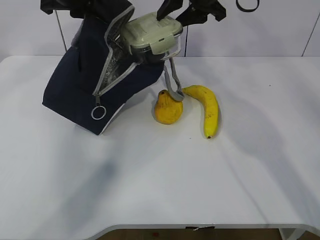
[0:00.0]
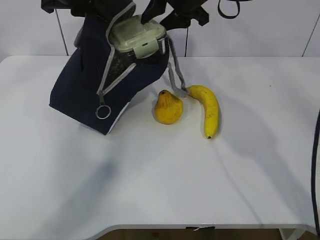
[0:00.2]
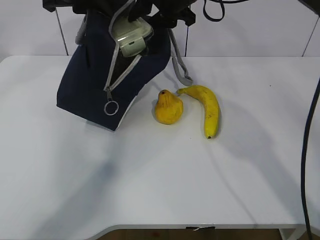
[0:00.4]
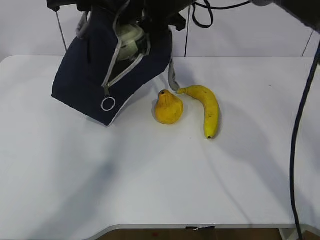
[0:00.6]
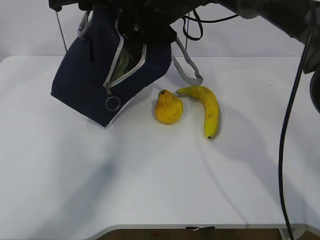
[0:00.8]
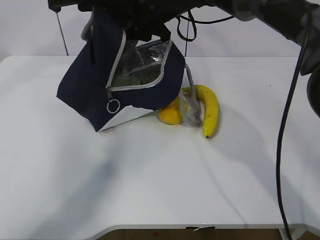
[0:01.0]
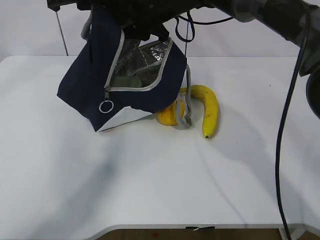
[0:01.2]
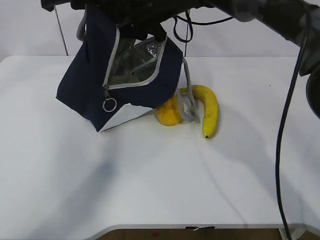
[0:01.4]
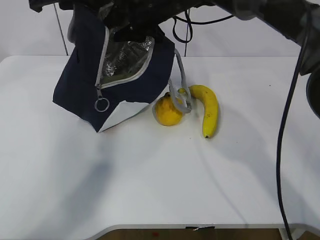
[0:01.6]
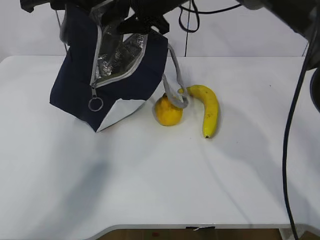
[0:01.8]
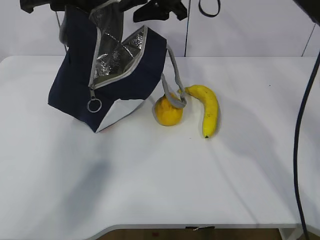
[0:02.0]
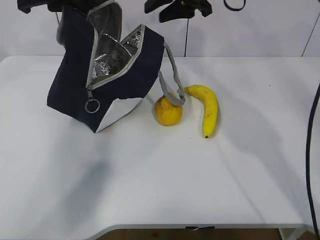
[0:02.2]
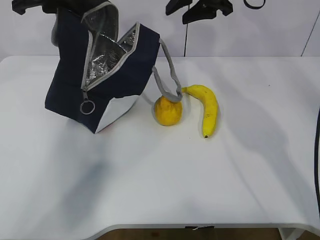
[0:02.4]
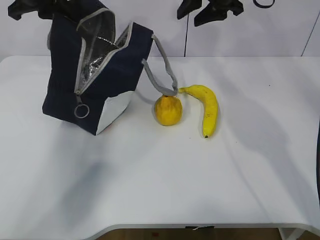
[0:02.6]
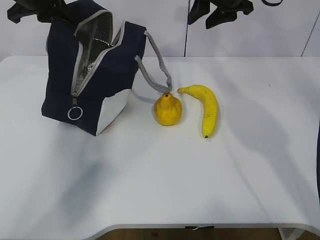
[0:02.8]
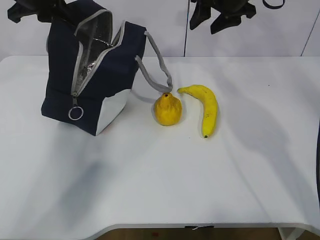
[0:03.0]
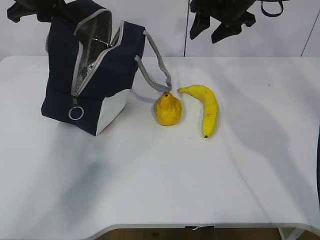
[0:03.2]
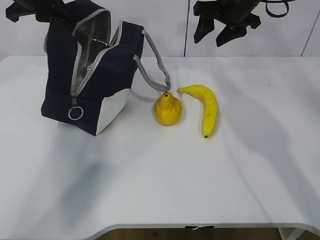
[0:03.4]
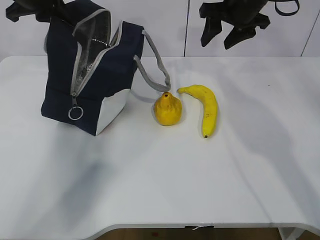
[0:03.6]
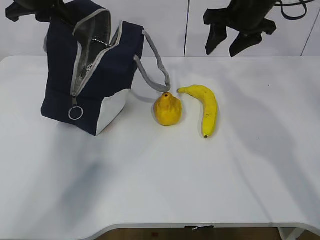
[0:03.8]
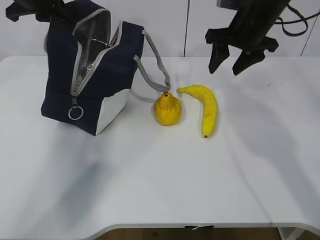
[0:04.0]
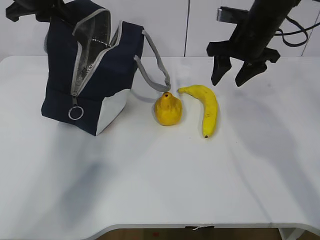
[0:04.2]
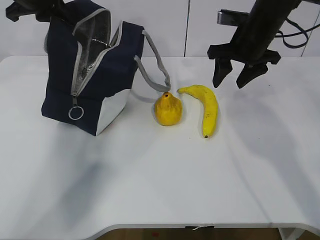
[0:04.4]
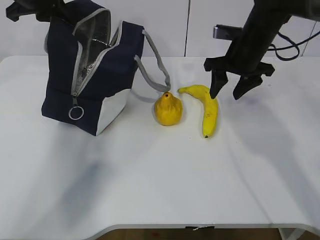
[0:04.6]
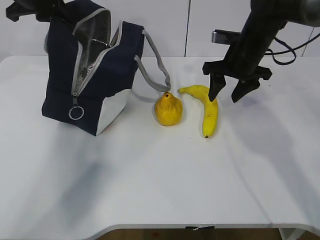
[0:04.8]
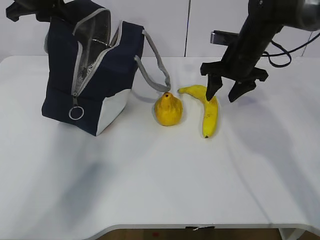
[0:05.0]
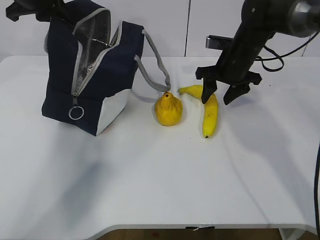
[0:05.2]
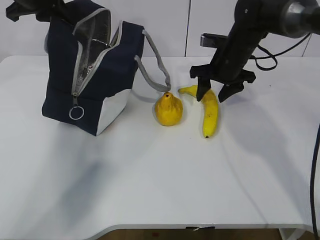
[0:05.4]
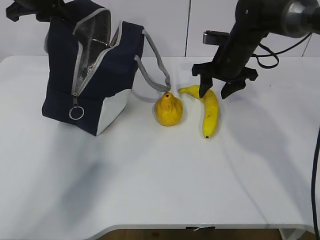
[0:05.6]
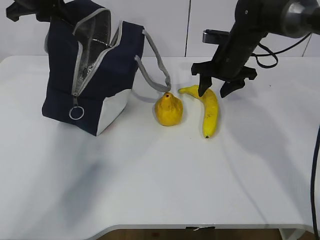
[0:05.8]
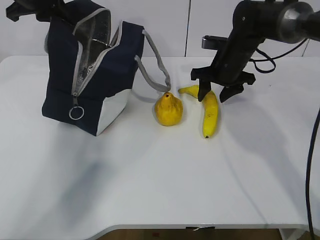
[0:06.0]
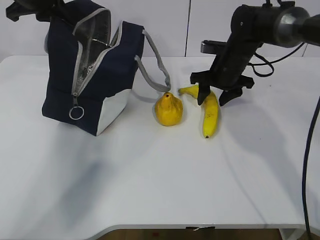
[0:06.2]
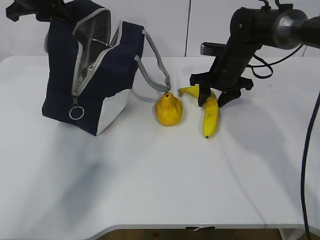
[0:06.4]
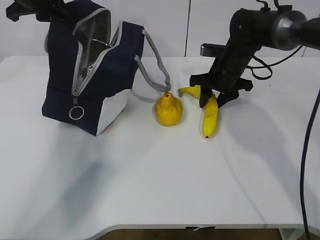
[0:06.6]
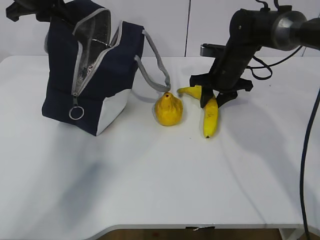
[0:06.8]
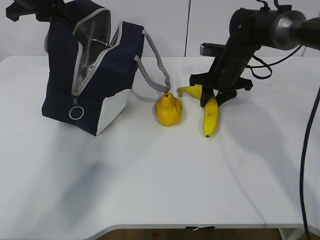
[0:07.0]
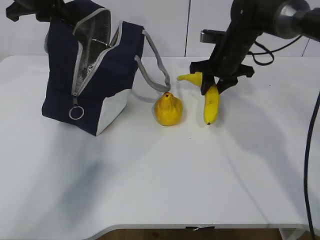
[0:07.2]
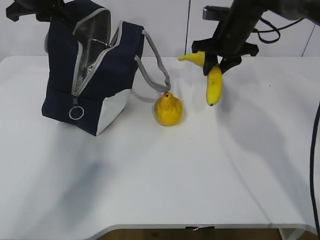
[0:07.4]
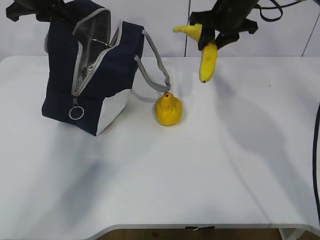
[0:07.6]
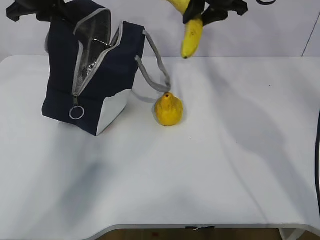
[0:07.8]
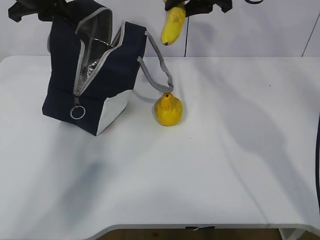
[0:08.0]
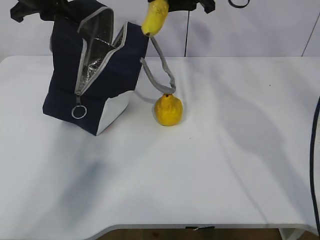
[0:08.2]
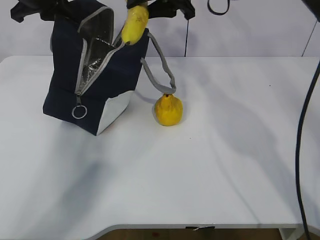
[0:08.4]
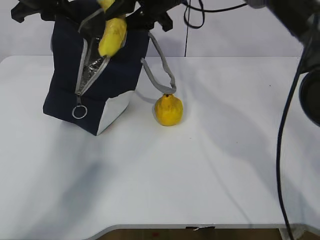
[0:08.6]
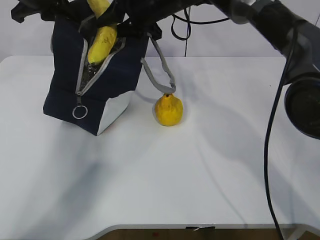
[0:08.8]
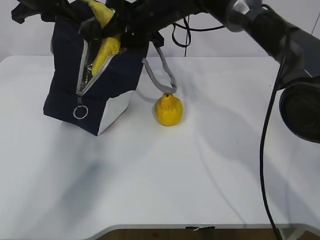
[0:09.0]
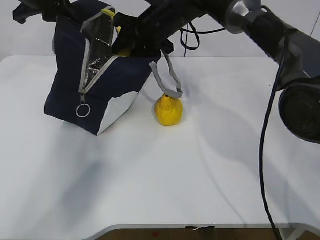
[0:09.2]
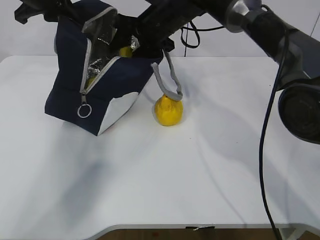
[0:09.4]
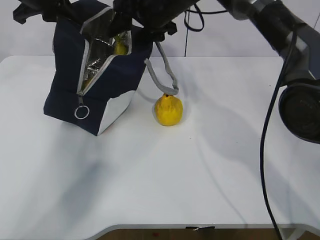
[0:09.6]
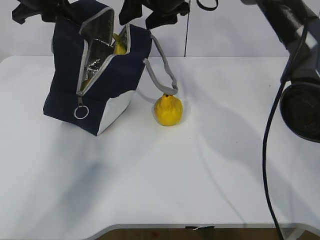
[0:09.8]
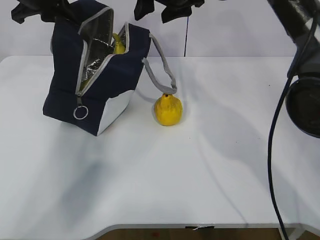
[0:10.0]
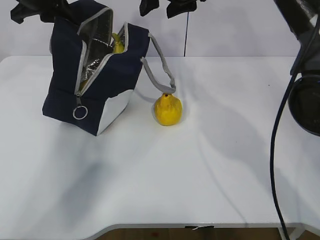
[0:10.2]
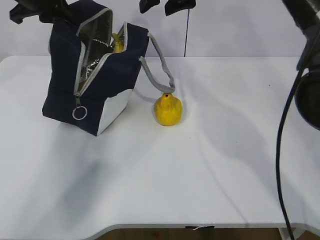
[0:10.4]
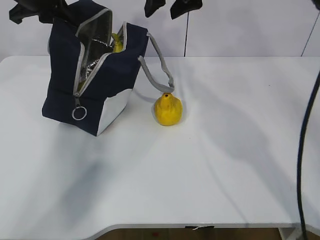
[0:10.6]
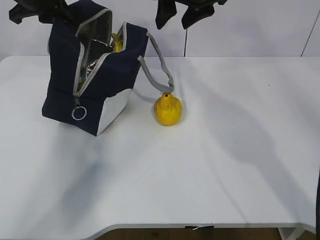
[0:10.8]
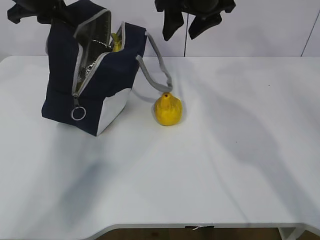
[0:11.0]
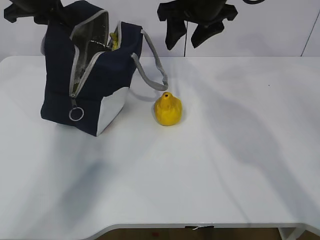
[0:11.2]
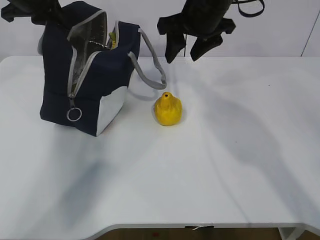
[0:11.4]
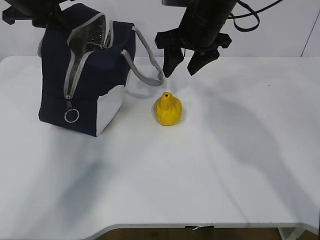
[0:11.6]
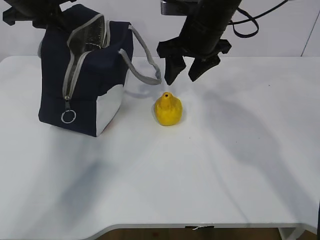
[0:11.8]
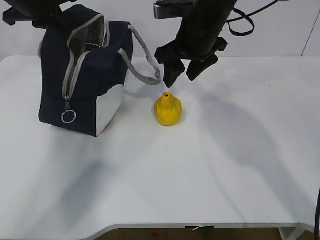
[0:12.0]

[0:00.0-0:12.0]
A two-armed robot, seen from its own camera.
Step, 0:01.8 to 0:06.8: Grasp the banana with the right gripper.
Step, 0:07.0 to 0:09.4: Place the banana into the package with the right gripper.
0:00.0 to 0:01.6: The right gripper is displaced to the left by roughly 10 cm.
0:01.6 to 0:03.0: The right gripper travels to the right by approximately 15 cm.
0:03.0 to 0:04.4: The right gripper heads downward and backward, covering approximately 10 cm.
0:04.4 to 0:06.0: The right gripper heads downward, covering some 5 cm.
0:06.0 to 0:07.6: The right gripper goes some 10 cm upward, and closes up.
0:07.6 to 0:09.0: The right gripper heads to the left, covering roughly 15 cm.
0:09.0 to 0:10.4: The right gripper moves upward, some 5 cm.
0:10.4 to 0:12.0: The right gripper travels downward and backward by roughly 10 cm.

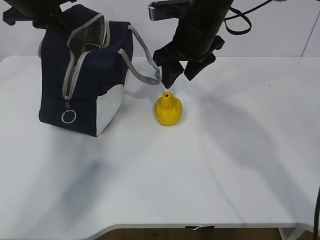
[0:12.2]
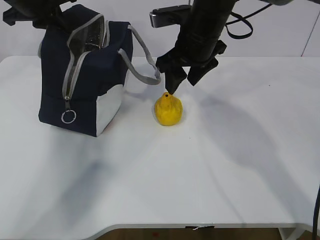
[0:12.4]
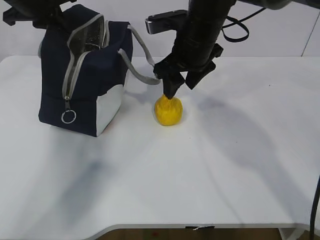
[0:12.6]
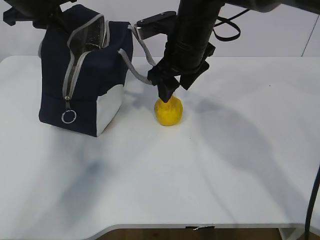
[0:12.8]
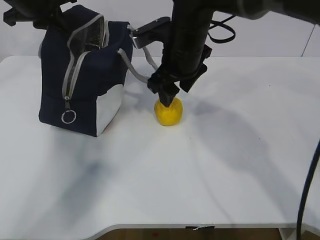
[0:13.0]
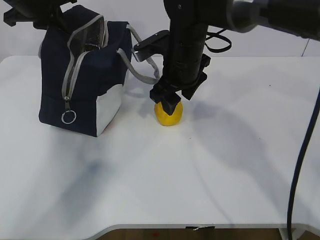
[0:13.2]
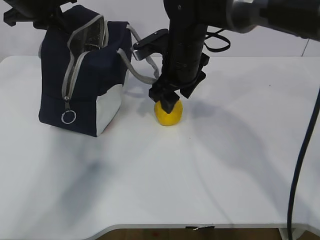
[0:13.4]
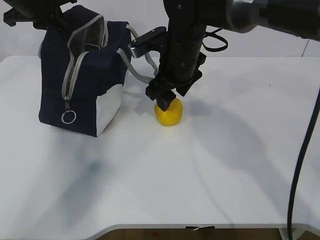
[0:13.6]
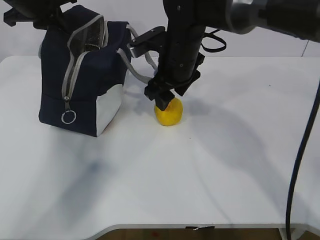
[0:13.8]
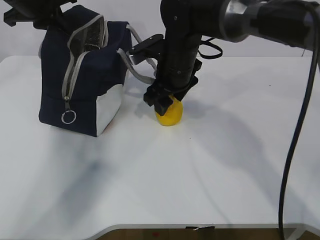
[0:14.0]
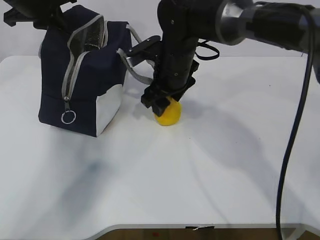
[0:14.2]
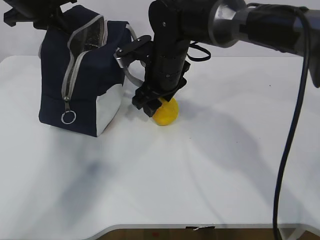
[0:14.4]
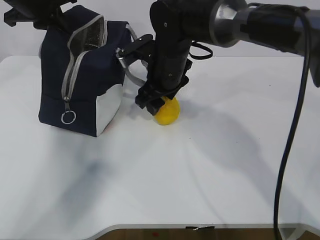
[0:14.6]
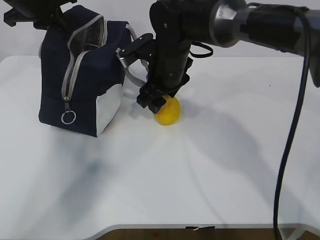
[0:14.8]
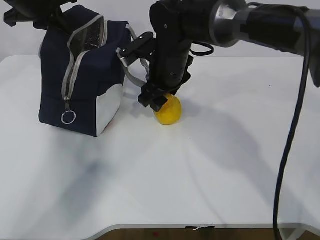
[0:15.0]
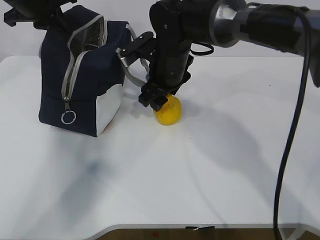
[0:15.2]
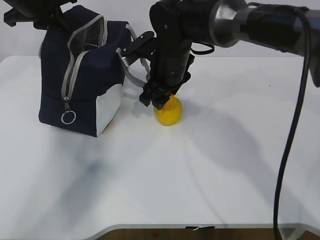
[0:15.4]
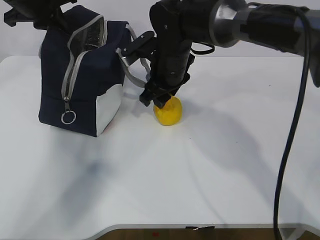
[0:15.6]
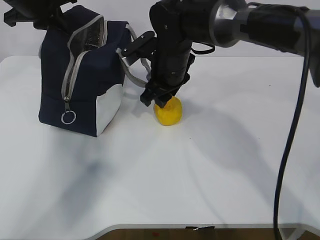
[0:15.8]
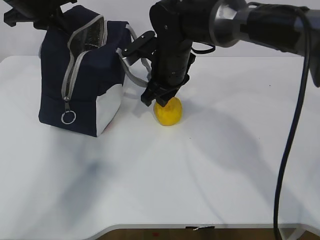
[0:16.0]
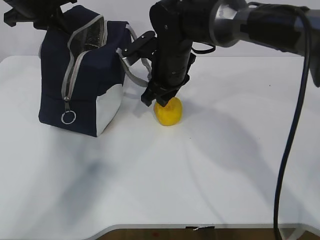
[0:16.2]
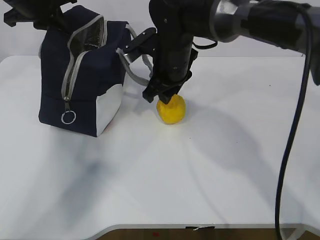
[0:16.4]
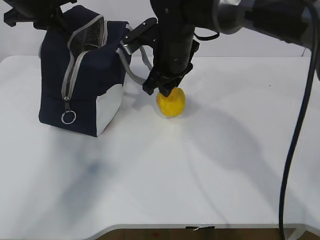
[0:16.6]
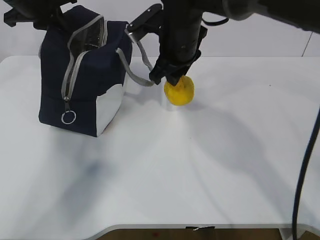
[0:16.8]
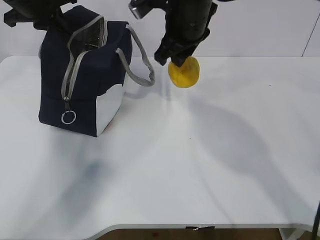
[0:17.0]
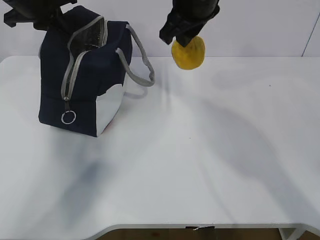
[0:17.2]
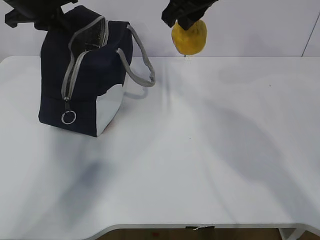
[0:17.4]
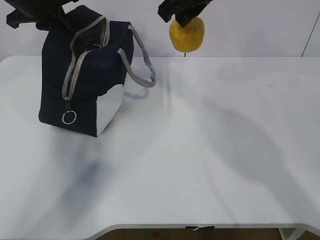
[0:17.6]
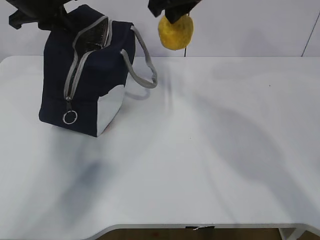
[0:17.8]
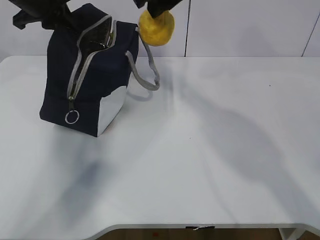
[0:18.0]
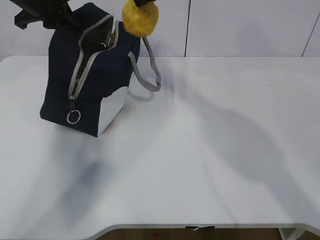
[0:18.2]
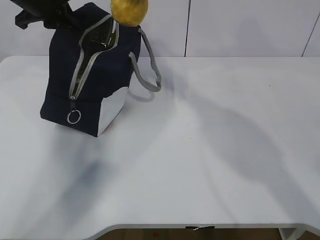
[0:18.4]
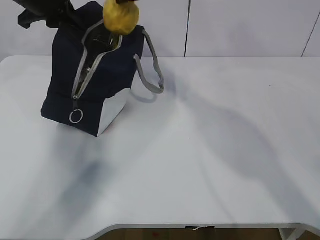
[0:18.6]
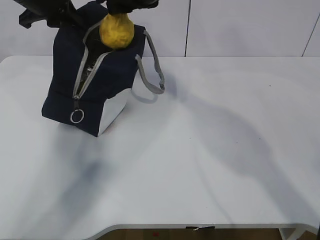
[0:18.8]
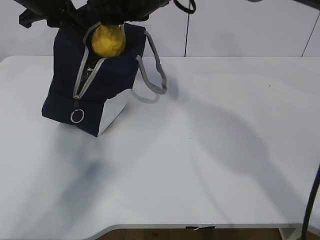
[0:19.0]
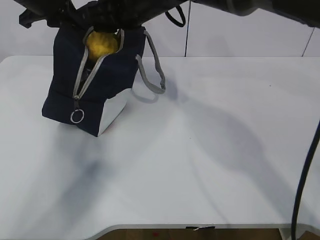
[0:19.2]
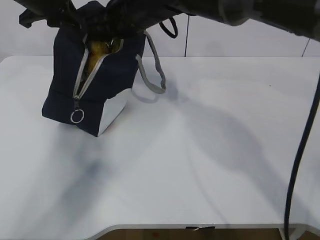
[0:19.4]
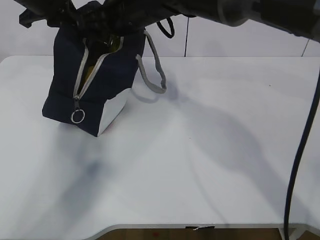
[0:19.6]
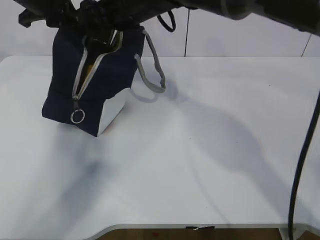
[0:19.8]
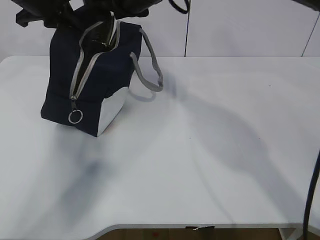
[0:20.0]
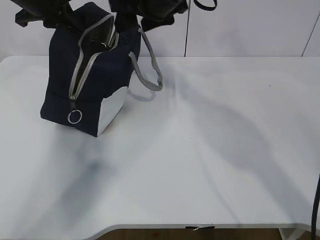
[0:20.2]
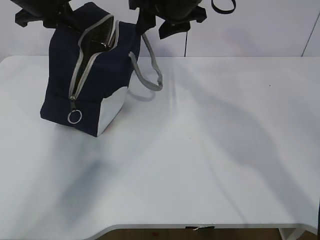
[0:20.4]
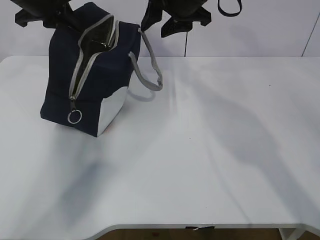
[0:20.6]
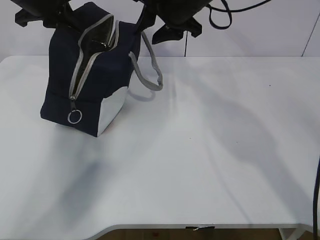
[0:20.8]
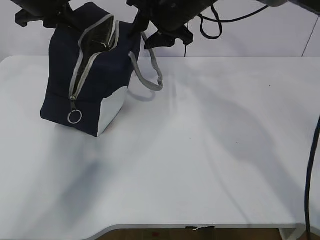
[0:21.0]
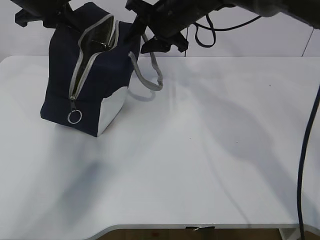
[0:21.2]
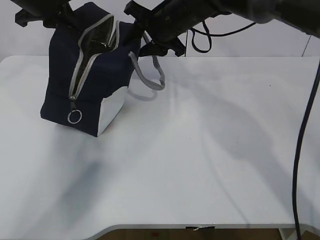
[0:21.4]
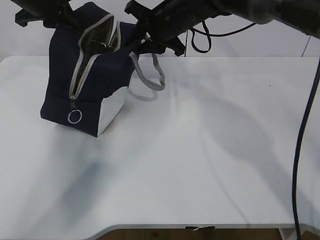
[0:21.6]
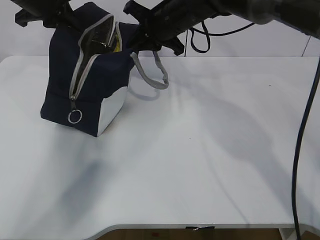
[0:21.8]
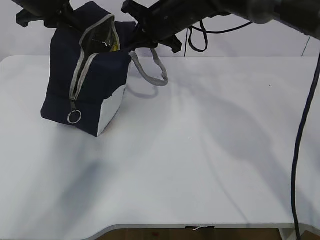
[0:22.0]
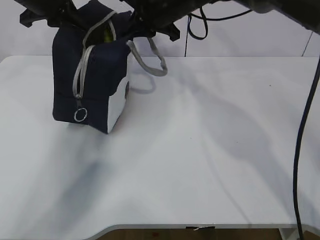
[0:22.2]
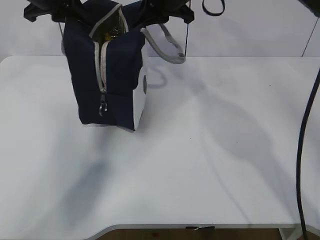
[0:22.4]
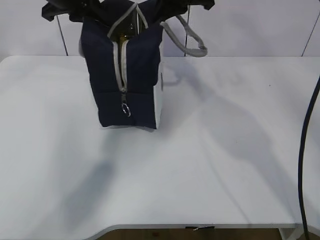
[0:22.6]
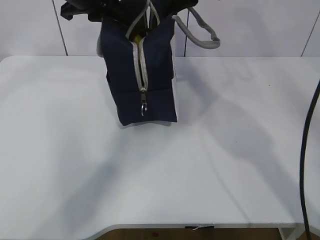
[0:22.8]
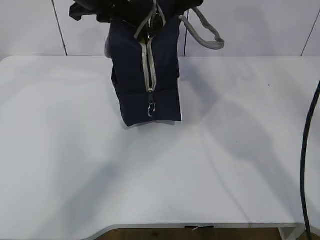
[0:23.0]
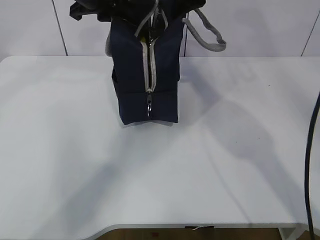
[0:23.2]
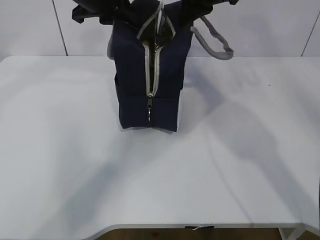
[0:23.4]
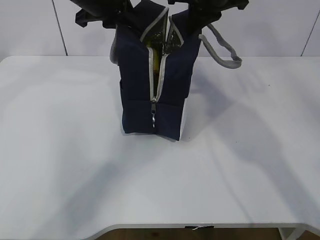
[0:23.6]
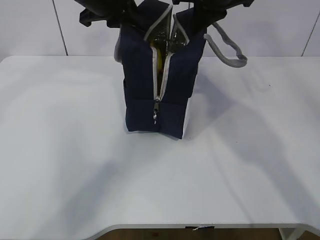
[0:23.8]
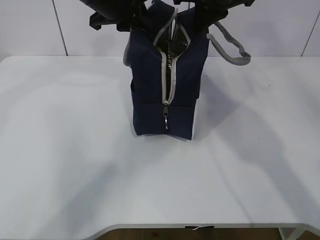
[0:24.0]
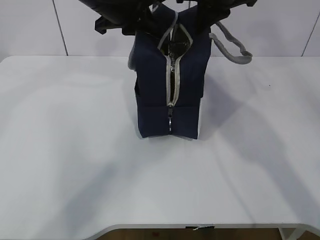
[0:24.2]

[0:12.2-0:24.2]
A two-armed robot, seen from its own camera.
Step, 0:12.2 to 0:16.0: Grasp the pear with the right gripper.
Step, 0:16.2 to 0:19.6: Place the pear into the package with the right gripper.
0:12.2 to 0:13.8: The right gripper moves approximately 5 cm.
0:13.8 to 0:15.2: The grippers move only a little.
0:15.2 to 0:16.6: The right gripper closes up.
0:16.6 to 0:18.2: The right gripper moves upward, approximately 15 cm.
0:18.2 to 0:19.8: The right gripper goes about 10 cm downward and to the left, and opens.
0:19.8 to 0:21.2: The right gripper shifts some 5 cm to the right.
0:21.2 to 0:22.6: The left gripper shifts by approximately 5 cm; the right gripper goes roughly 5 cm upward, and closes up.
0:22.6 to 0:24.2: The left gripper goes roughly 10 cm to the right. Meanwhile the right gripper shifts by about 5 cm.
